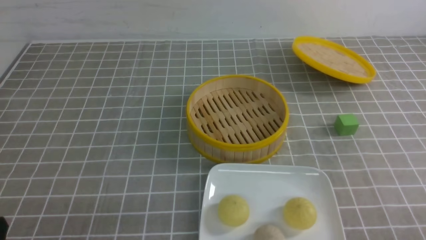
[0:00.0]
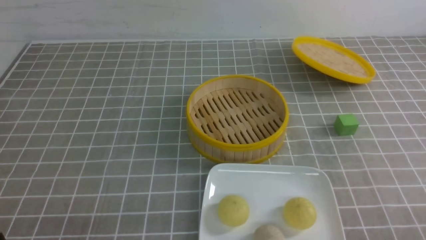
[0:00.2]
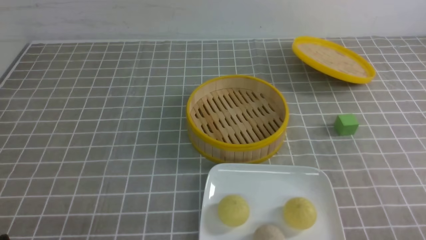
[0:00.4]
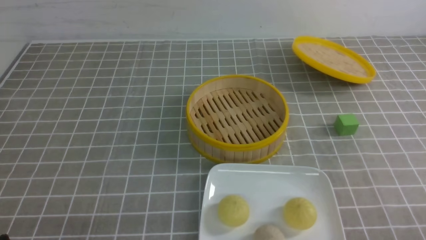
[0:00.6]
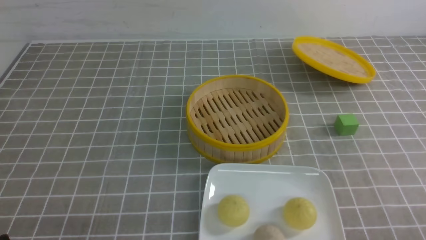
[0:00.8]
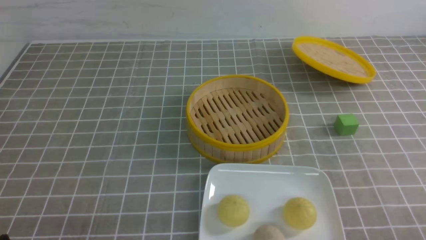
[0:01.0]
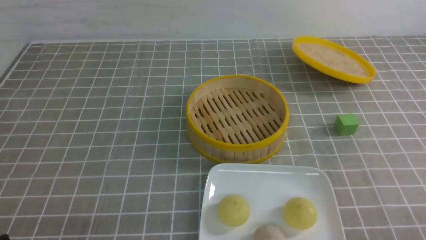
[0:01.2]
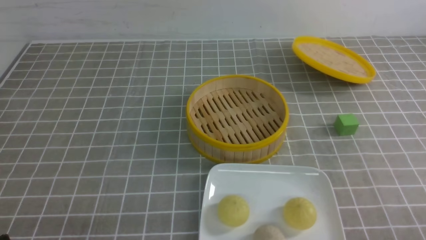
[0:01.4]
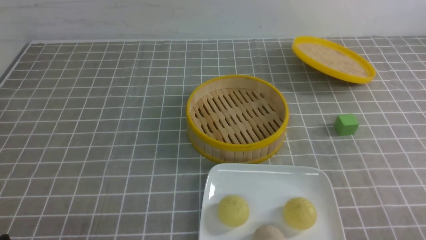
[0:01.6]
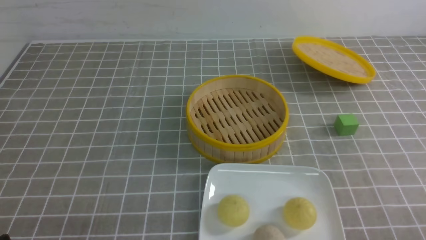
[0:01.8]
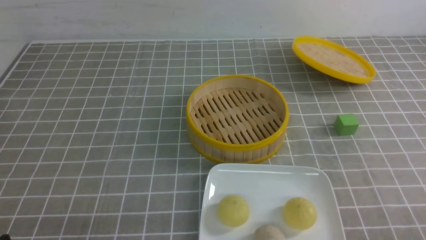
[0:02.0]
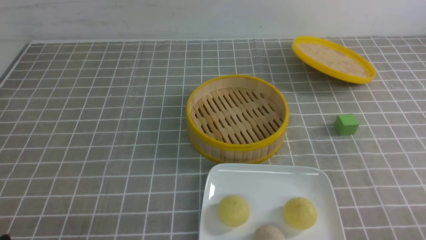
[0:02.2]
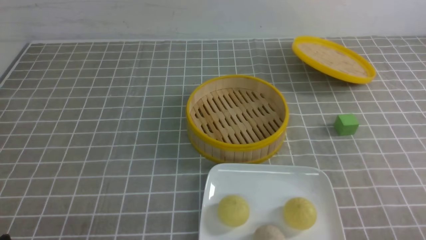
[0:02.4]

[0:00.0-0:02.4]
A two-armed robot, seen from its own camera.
0:01.2 to 0:02.4: The two grippers keep their place.
